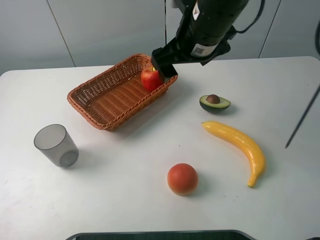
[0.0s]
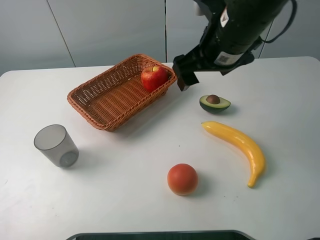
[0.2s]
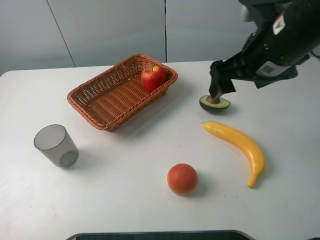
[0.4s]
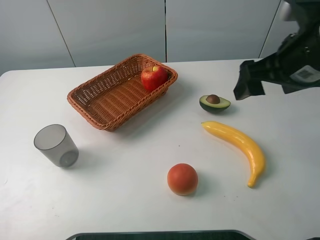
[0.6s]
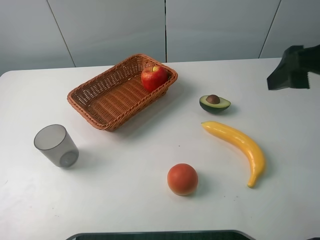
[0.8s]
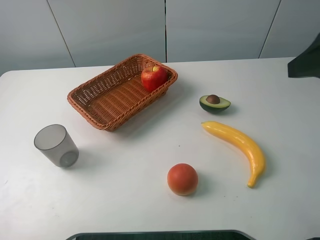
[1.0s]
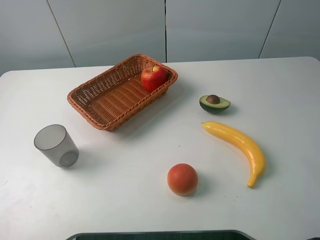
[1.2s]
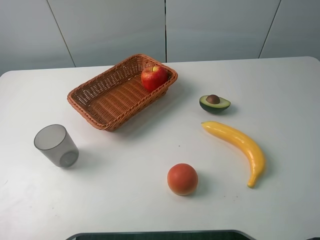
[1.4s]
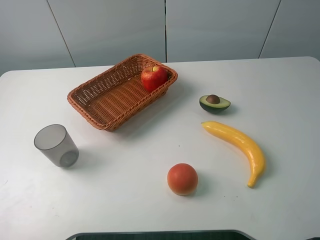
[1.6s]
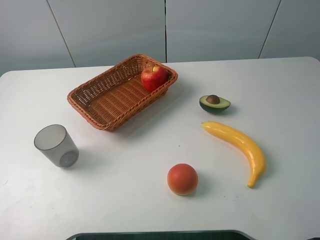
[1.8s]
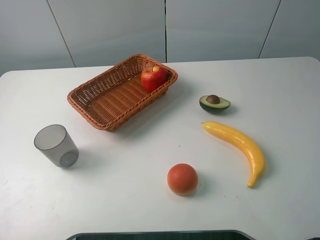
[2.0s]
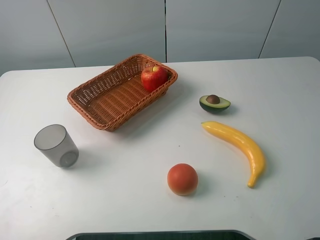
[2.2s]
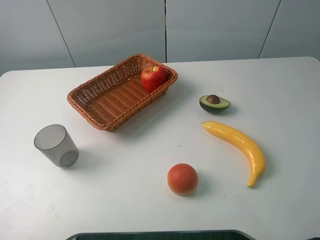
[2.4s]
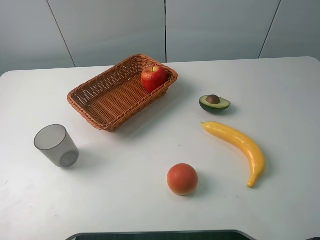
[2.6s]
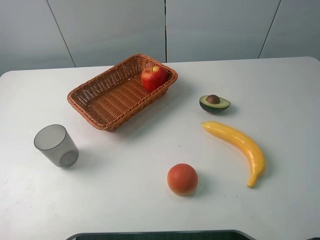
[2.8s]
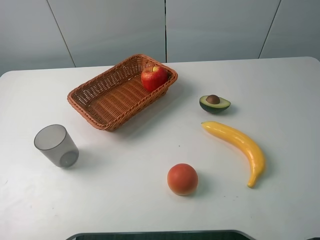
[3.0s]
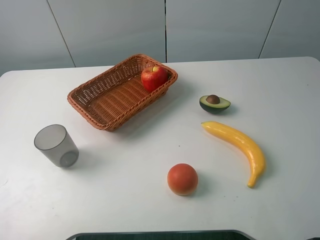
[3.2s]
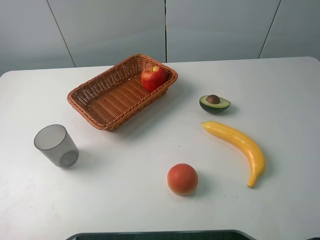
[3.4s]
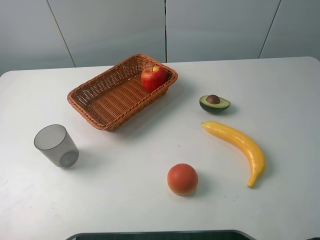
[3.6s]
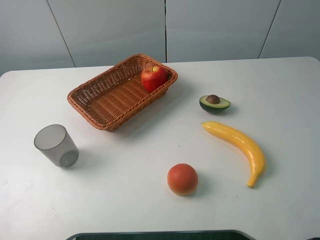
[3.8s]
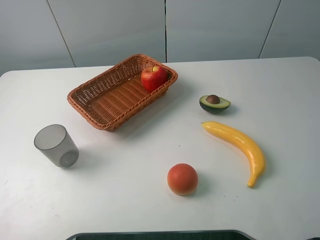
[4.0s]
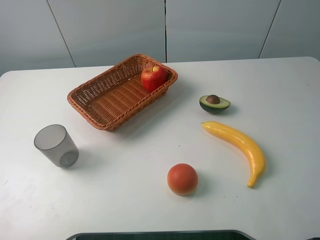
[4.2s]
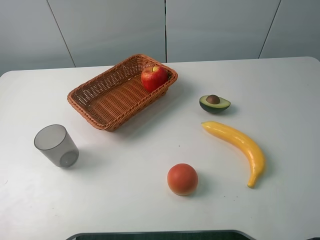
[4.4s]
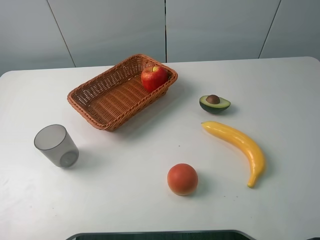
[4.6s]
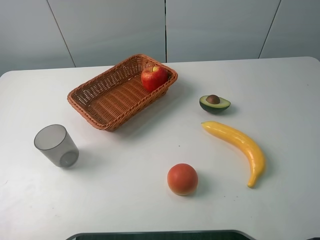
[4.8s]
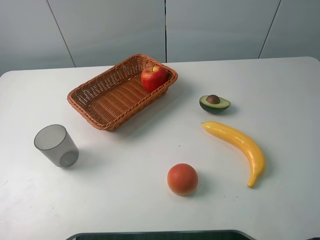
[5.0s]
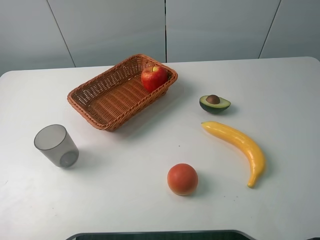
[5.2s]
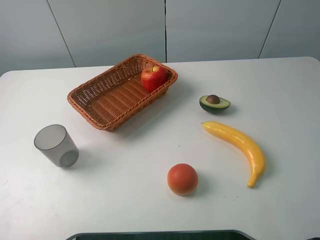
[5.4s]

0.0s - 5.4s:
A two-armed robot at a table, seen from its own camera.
Task of the whole recording: randomly pick up an item from the table and put it in the basket.
0.0s - 1.4s: The right gripper travels backward and to the right by approximately 30 cm.
4.0s - 5.4s: The two grippers keep their place.
